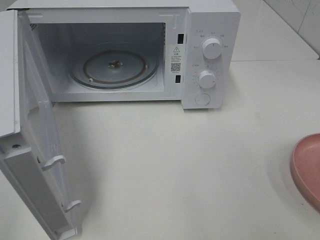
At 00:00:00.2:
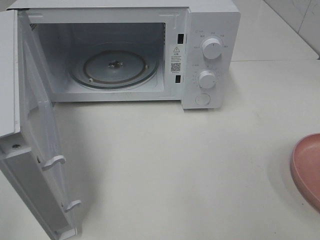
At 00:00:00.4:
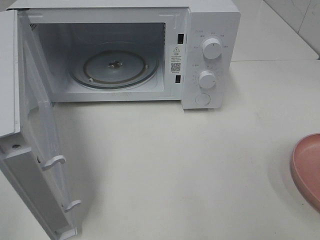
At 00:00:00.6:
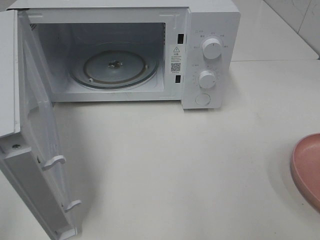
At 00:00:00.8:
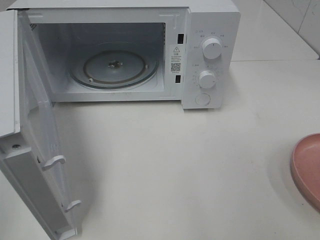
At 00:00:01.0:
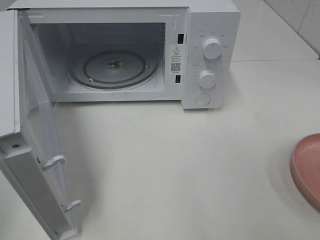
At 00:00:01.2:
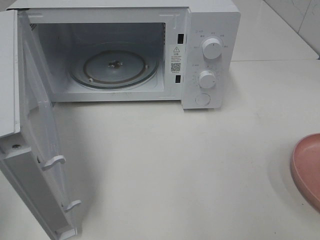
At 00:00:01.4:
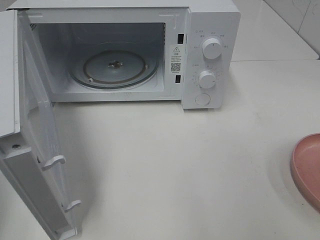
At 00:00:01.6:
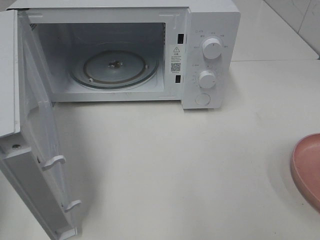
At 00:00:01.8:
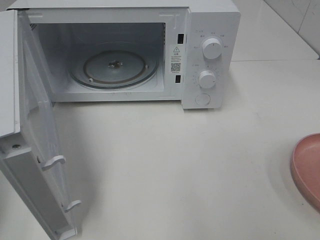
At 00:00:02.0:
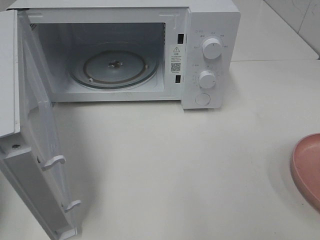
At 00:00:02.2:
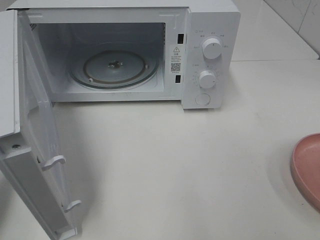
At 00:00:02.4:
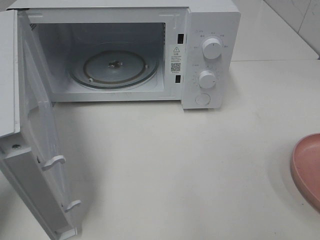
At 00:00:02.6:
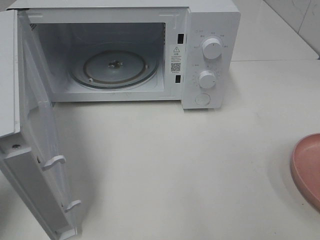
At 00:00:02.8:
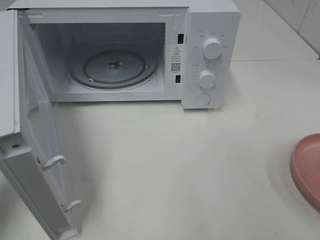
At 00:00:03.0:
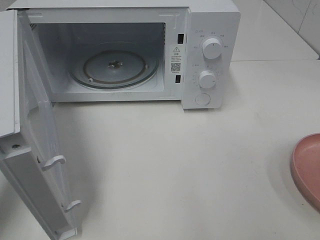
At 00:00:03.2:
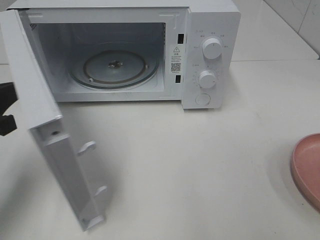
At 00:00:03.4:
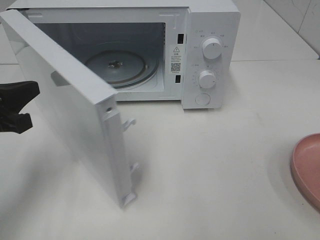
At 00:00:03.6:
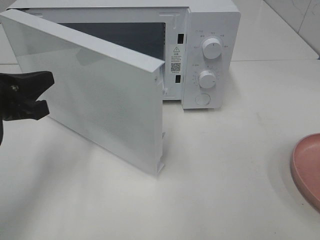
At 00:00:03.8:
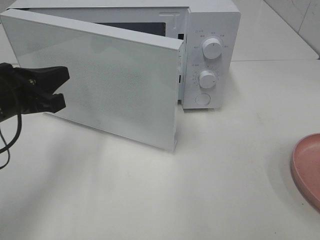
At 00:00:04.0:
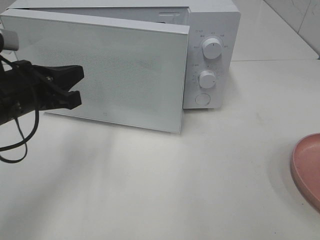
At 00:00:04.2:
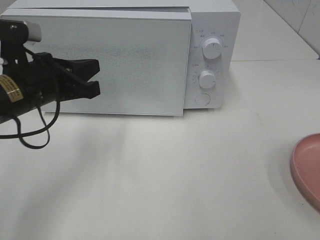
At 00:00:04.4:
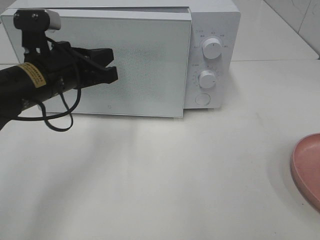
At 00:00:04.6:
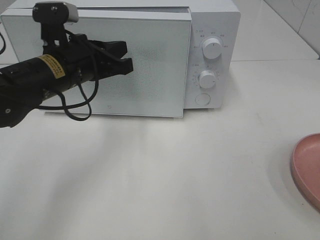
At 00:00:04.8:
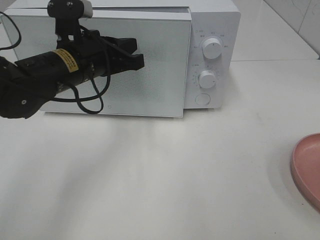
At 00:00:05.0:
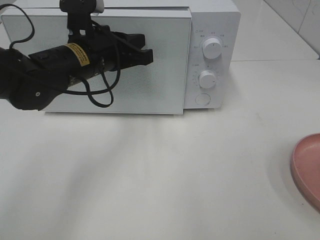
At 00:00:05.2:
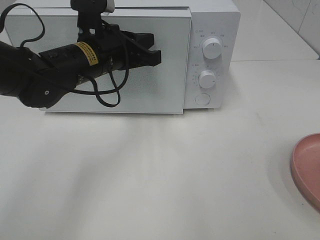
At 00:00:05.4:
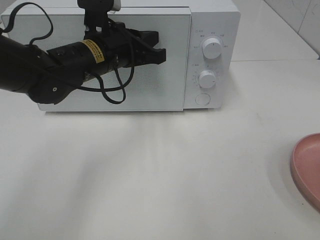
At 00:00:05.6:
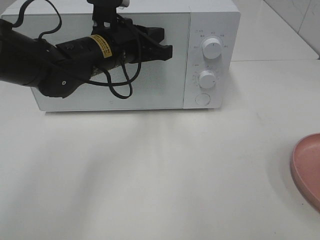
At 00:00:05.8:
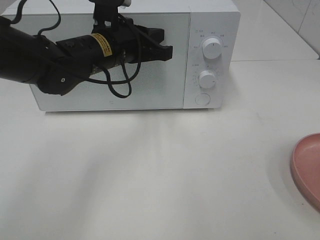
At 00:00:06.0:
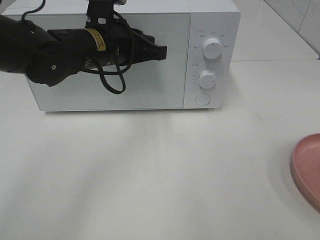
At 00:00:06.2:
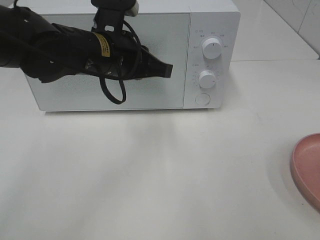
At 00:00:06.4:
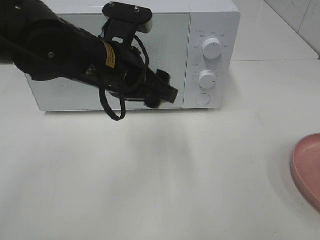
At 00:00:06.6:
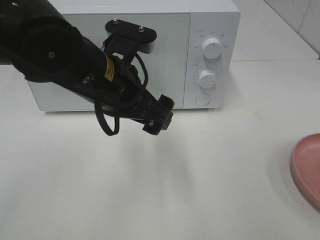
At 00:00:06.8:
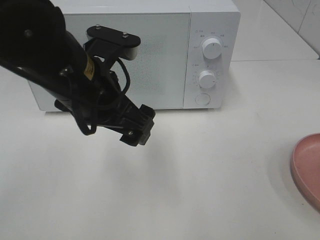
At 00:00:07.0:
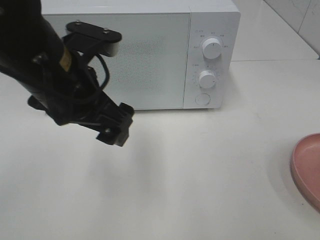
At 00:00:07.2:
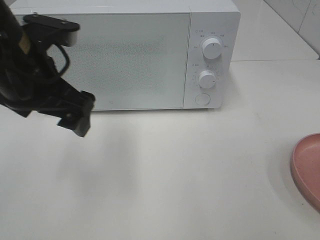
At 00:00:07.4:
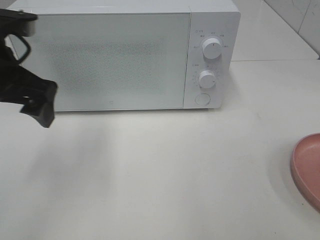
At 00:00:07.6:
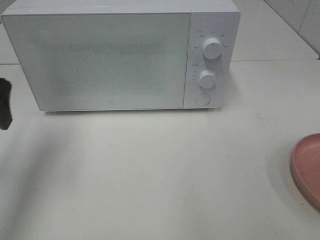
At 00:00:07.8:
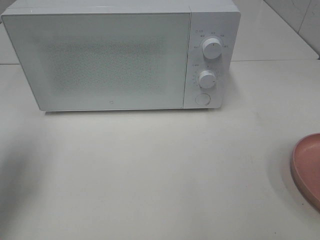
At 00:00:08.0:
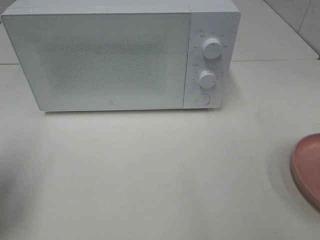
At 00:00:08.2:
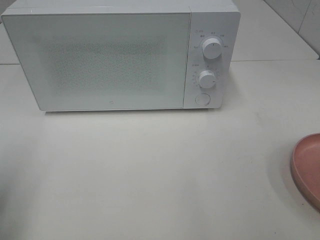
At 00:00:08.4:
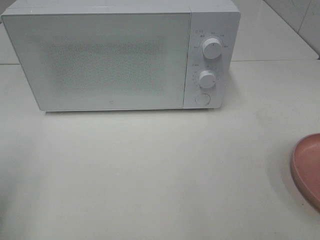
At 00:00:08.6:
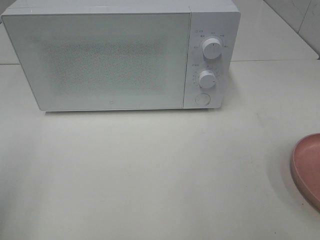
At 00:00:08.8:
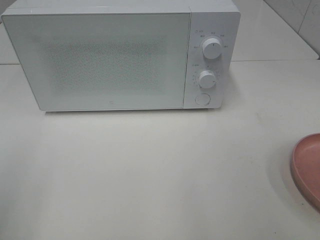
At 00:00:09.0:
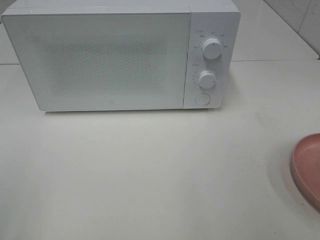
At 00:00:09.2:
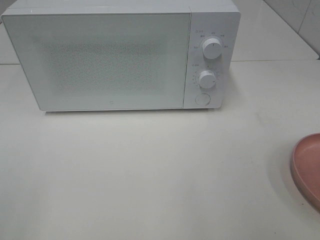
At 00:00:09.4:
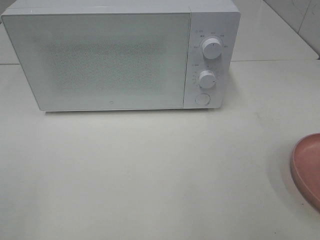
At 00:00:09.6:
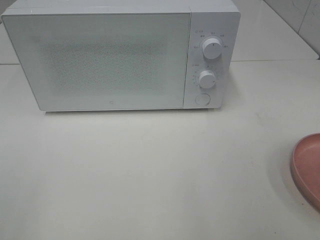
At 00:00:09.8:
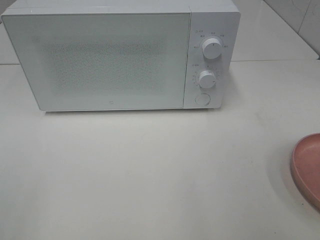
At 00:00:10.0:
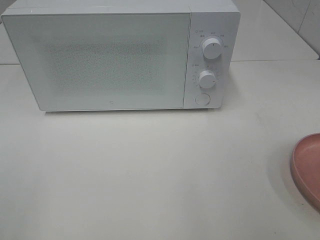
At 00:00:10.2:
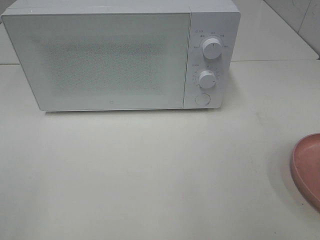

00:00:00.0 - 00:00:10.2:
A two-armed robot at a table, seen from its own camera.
Task of the whole recording: Heat the burger.
Step, 00:00:00.0 - 00:00:06.0: Left hand: close the microwave door.
00:00:01.4 - 00:00:03.0: The left gripper is displaced forward and downward by roughly 15 cm.
00:00:03.0 - 00:00:04.4: The left gripper goes some 15 cm to the right and forward.
00:00:04.4 - 00:00:05.8: The left gripper moves to the right and forward, some 10 cm.
00:00:05.8 - 00:00:07.2: The left gripper is displaced backward, to the left and upward by some 15 cm, and opens.
00:00:07.2 - 00:00:08.8: The left gripper is displaced backward and to the left by some 25 cm.

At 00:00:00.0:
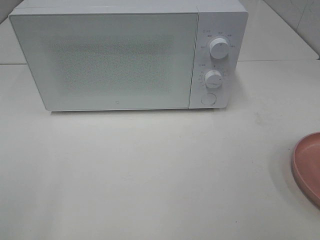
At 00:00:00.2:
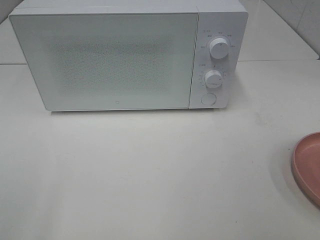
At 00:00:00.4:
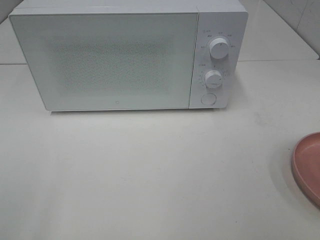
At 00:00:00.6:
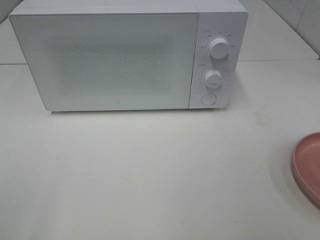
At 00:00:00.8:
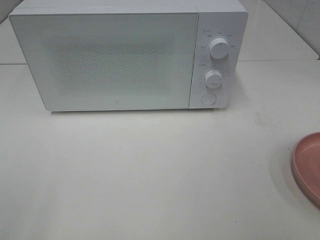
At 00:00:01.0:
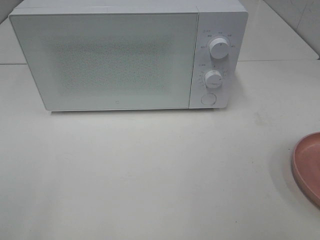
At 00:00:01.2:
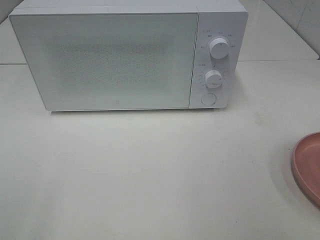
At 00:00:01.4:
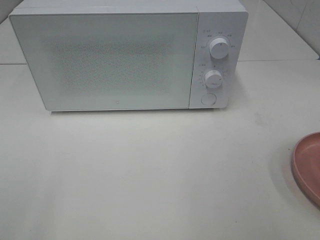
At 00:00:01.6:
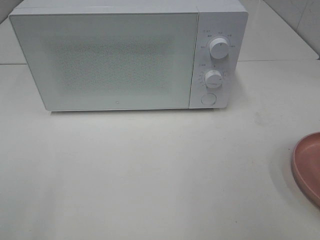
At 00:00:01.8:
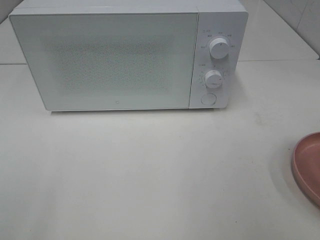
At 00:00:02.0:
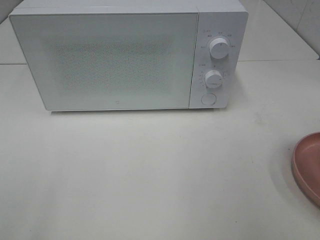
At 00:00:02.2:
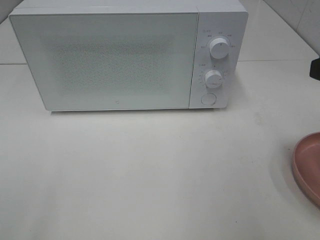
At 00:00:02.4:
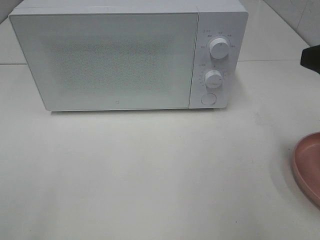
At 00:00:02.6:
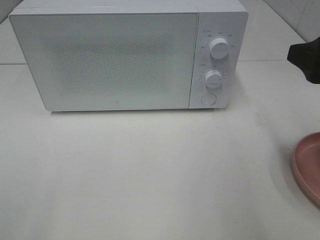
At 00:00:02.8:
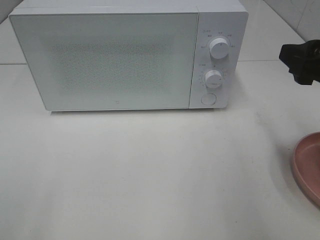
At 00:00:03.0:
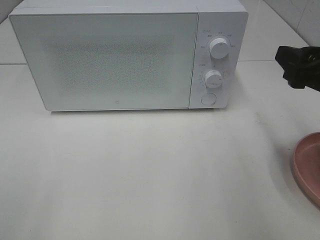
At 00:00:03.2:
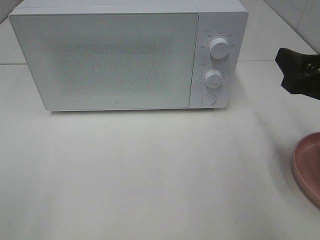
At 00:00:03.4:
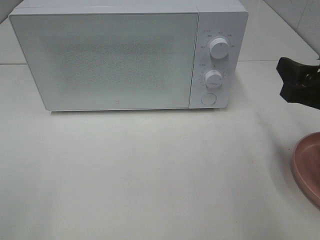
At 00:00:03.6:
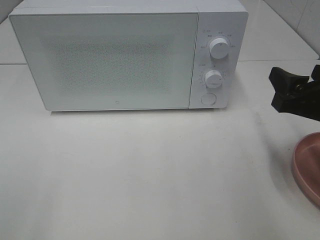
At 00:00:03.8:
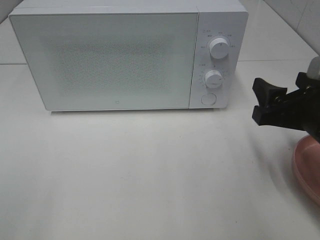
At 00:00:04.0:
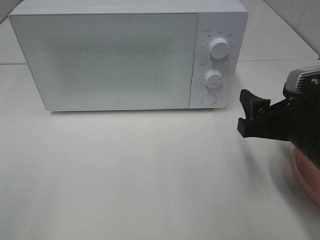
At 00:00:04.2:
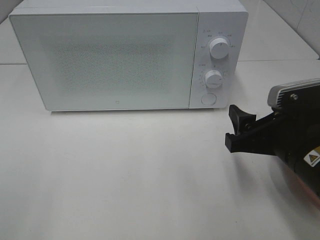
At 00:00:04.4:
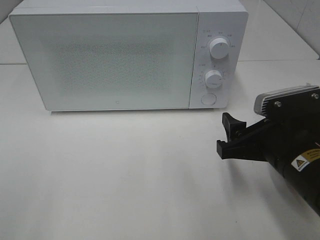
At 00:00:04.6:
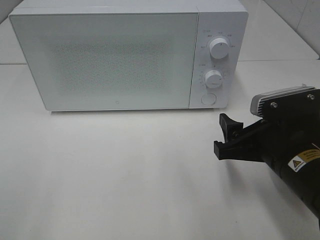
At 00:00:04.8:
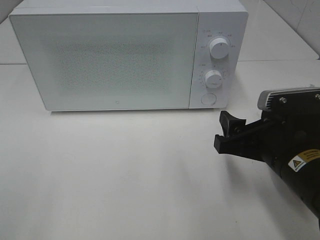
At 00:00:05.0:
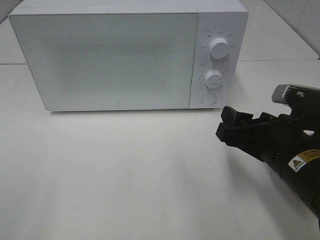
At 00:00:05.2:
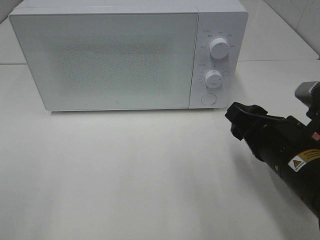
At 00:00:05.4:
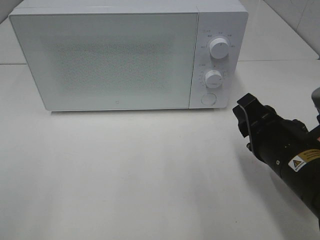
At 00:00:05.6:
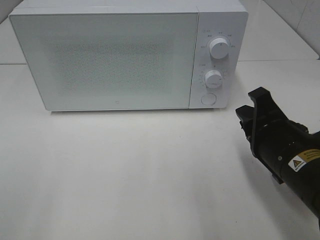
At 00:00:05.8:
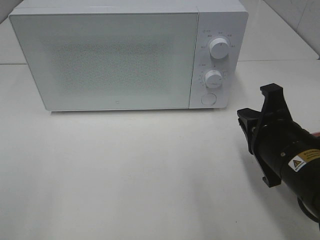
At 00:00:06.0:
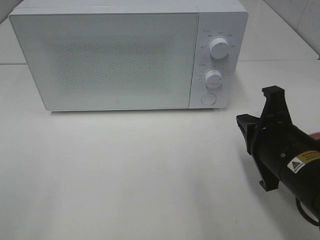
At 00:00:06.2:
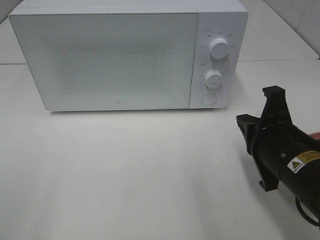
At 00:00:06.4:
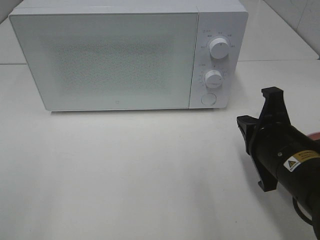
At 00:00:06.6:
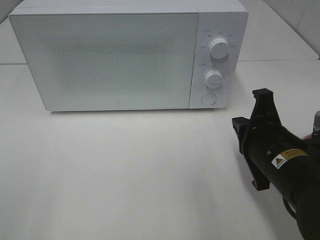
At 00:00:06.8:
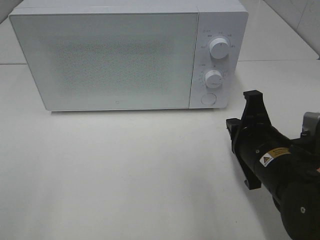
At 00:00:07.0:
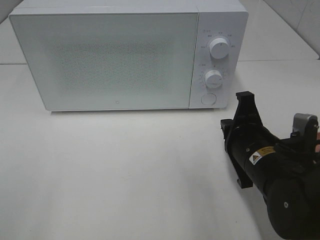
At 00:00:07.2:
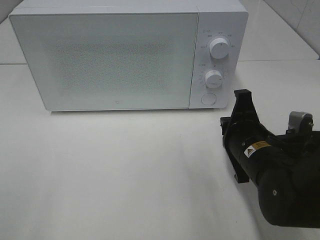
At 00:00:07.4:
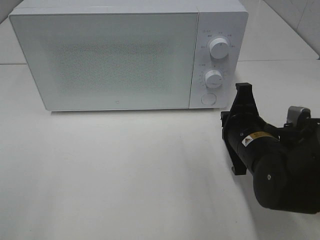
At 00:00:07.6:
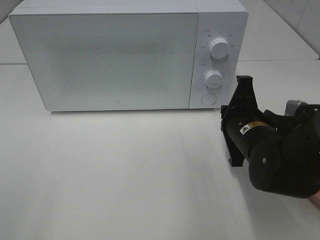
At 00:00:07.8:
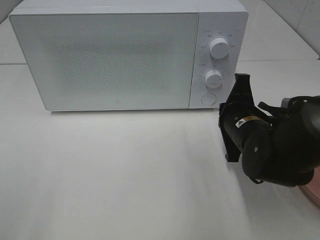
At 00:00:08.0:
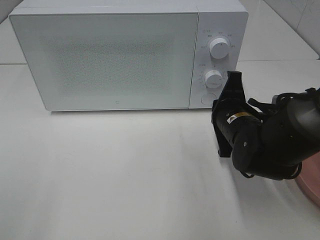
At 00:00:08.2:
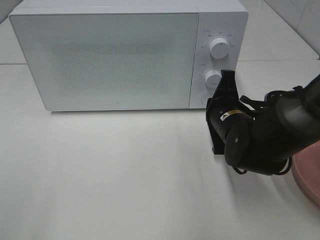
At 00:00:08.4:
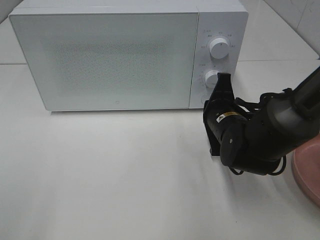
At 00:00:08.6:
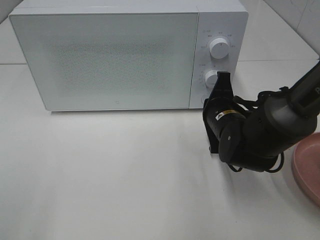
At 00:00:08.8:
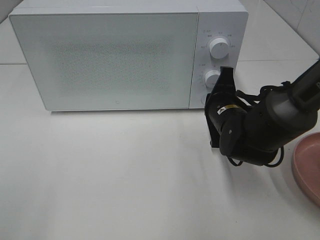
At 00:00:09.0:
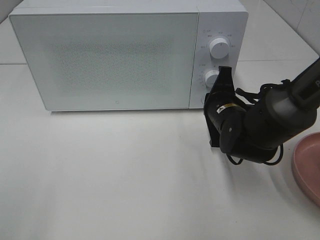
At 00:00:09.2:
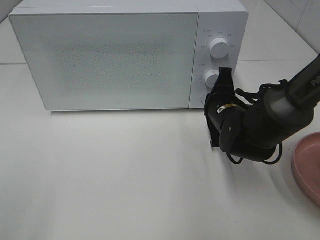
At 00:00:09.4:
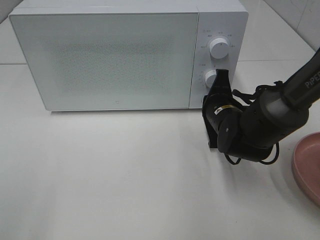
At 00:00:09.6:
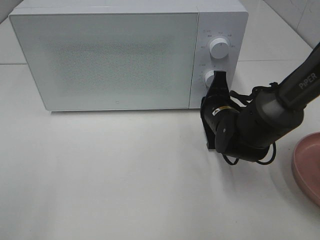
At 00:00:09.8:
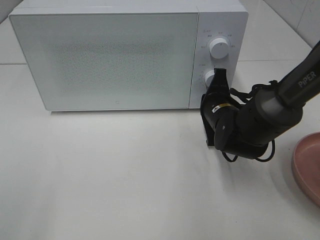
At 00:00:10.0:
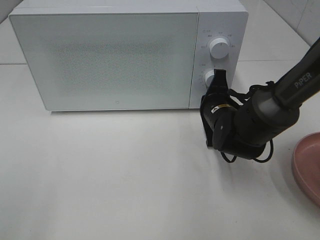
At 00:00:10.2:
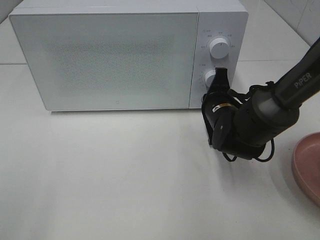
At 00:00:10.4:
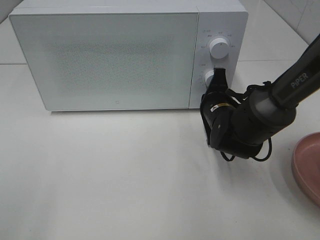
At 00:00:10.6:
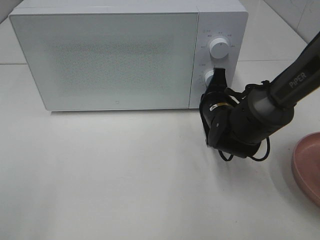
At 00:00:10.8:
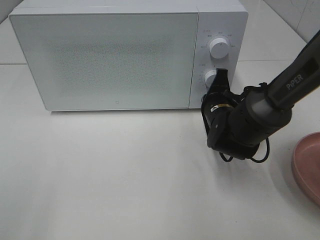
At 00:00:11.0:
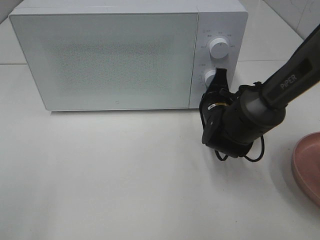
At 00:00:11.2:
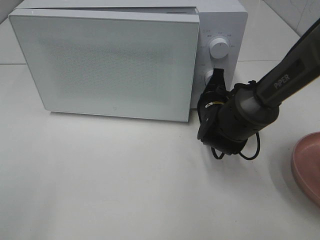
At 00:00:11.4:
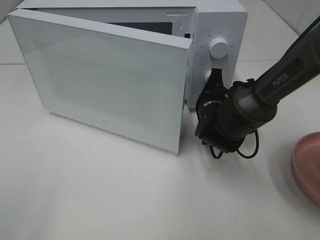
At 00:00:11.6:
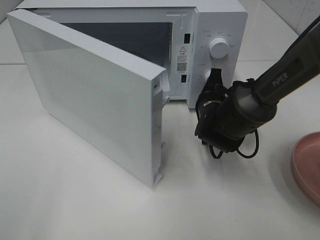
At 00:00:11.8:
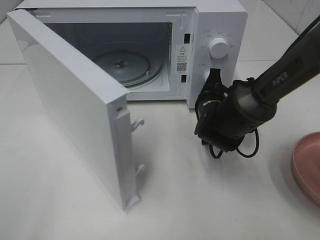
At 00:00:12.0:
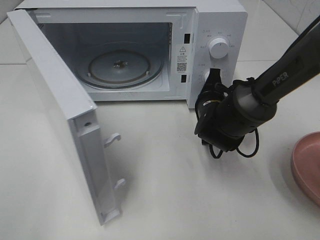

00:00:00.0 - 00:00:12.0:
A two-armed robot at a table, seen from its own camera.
Task of the whole recording: Heat the burger.
00:00:01.6 - 00:00:03.0: The right gripper heads forward and downward, covering approximately 15 cm.
00:00:03.0 - 00:00:04.4: The right gripper goes approximately 10 cm downward and to the left.
00:00:04.4 - 00:00:06.0: The right gripper closes.
00:00:06.0 - 00:00:07.6: The right gripper is displaced forward by about 10 cm.
00:00:07.6 - 00:00:09.0: The right gripper moves forward, approximately 5 cm.
00:00:09.0 - 00:00:10.4: There are only small adjustments of the grippers.
